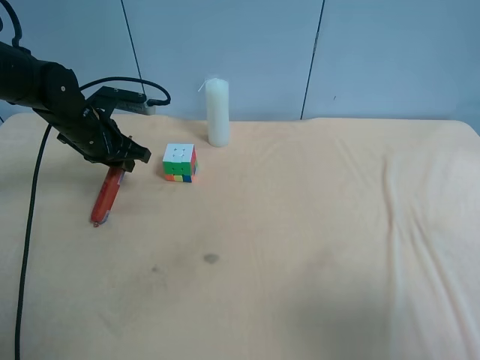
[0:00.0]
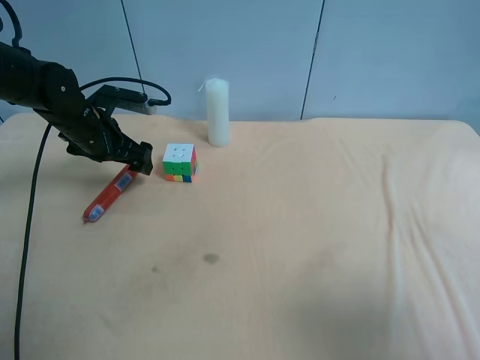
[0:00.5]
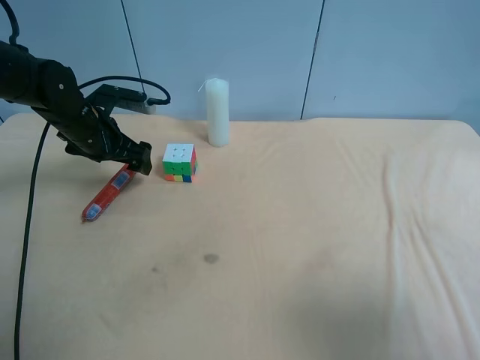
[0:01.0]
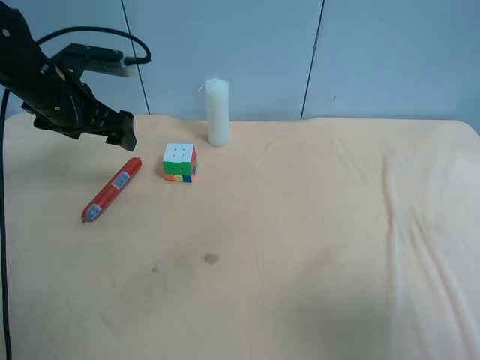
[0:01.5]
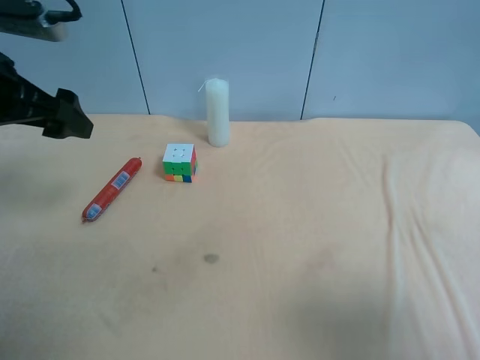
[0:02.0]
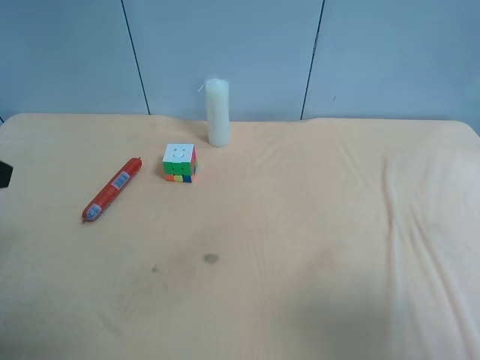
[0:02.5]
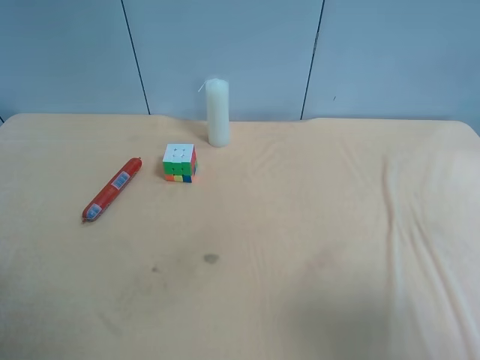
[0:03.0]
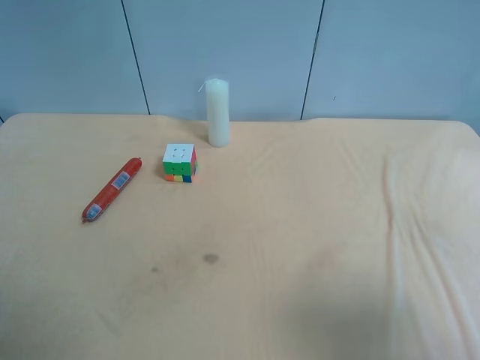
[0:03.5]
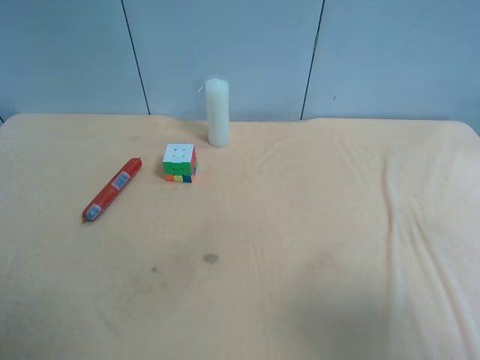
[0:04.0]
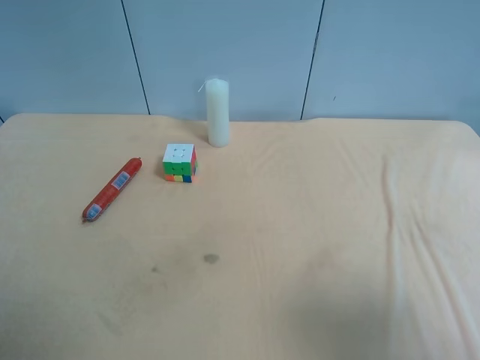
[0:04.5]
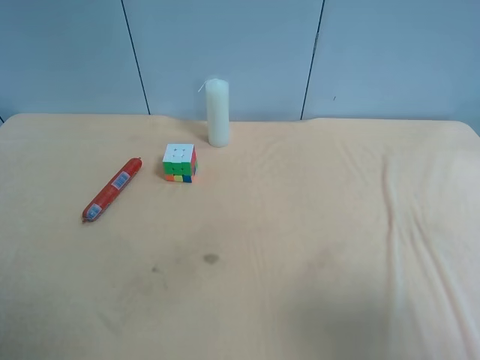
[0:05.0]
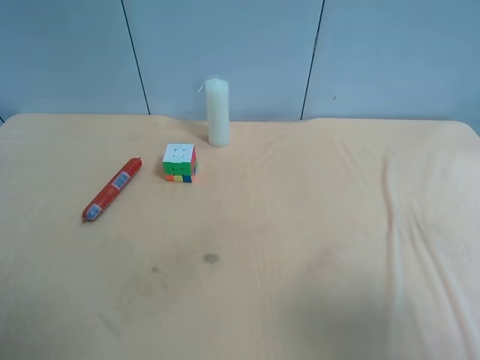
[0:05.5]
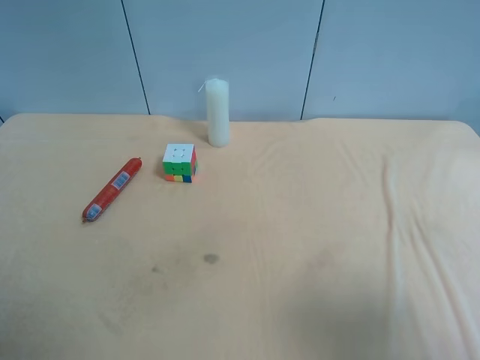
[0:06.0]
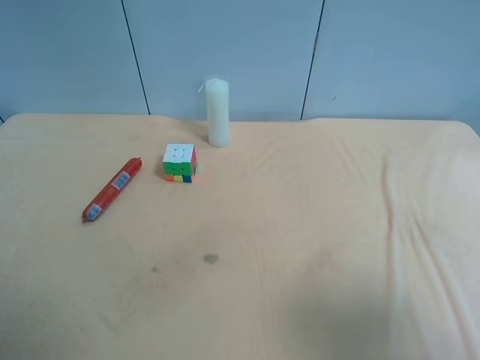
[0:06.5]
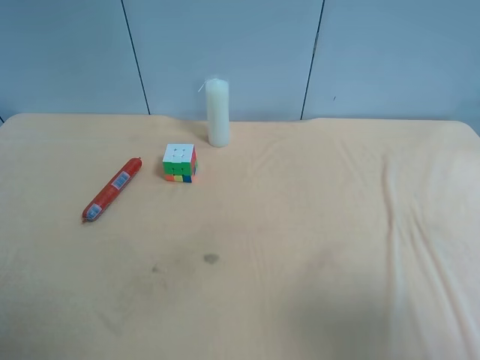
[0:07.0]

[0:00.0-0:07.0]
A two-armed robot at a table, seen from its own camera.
Task of the whole recording: use the right gripper to pick up the item and transfer it from the right gripper to the left gripper.
0:00.0 to 0:02.0: The left gripper travels upward and backward by some 20 cm, and opens.
0:02.0 to 0:03.5: The left gripper travels backward by about 20 cm.
0:05.0 to 0:07.0: Both grippers stay about where they are.
